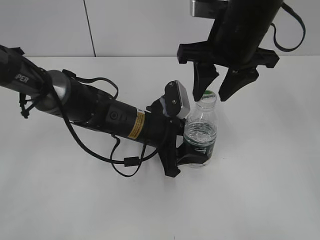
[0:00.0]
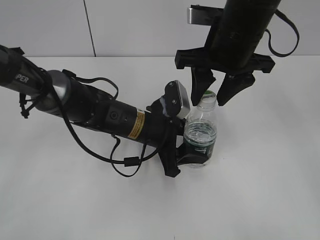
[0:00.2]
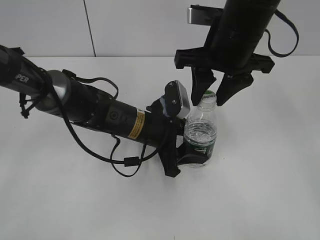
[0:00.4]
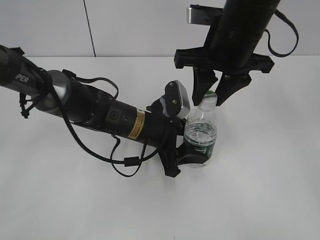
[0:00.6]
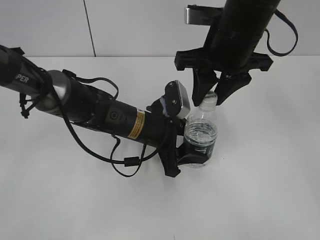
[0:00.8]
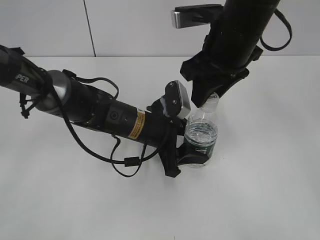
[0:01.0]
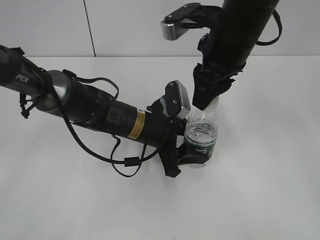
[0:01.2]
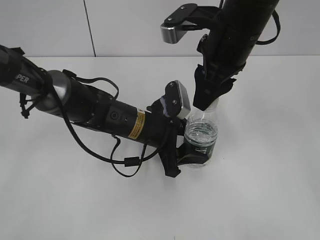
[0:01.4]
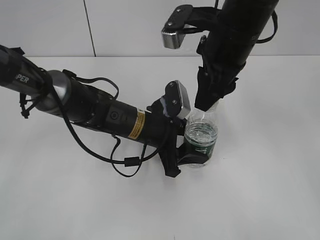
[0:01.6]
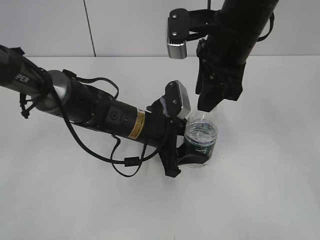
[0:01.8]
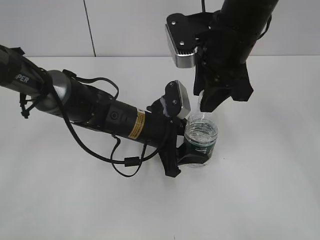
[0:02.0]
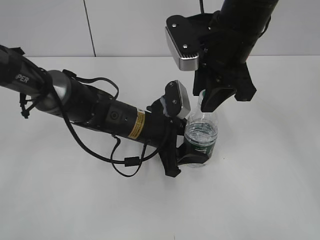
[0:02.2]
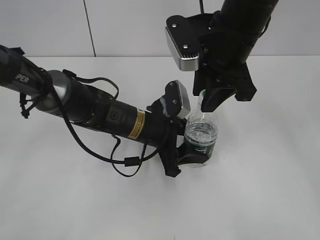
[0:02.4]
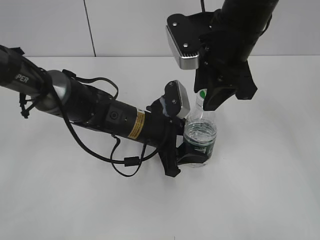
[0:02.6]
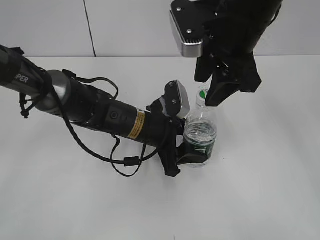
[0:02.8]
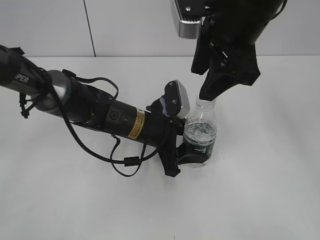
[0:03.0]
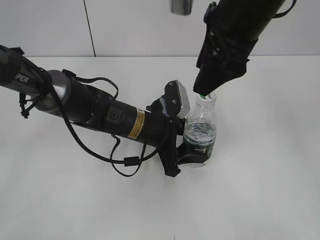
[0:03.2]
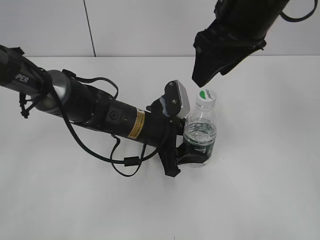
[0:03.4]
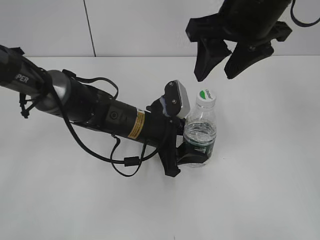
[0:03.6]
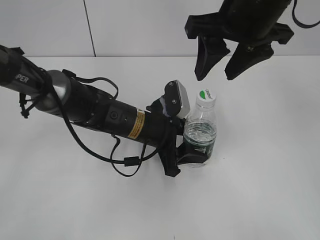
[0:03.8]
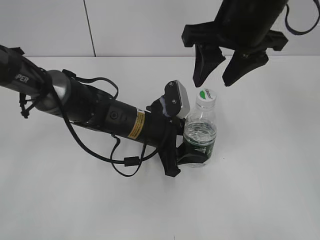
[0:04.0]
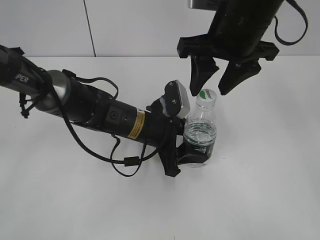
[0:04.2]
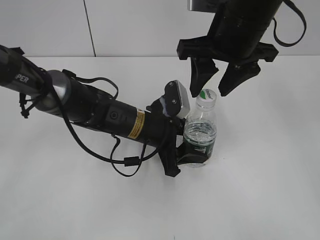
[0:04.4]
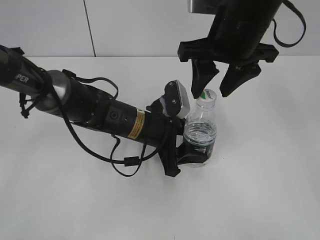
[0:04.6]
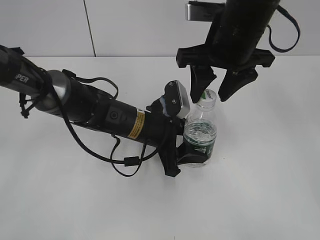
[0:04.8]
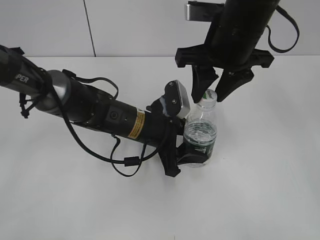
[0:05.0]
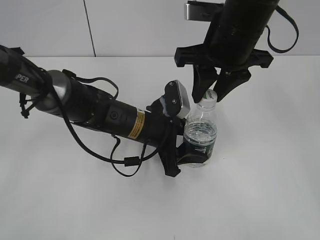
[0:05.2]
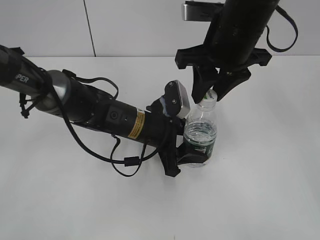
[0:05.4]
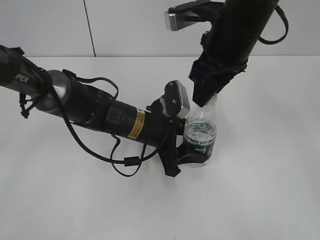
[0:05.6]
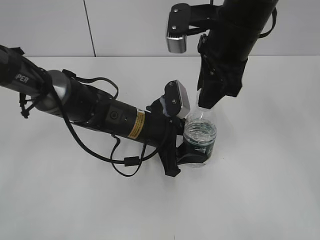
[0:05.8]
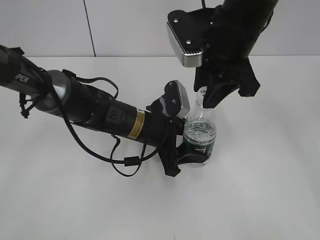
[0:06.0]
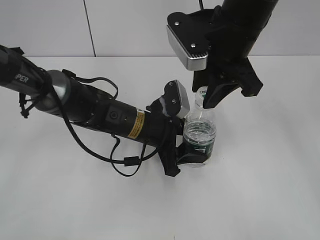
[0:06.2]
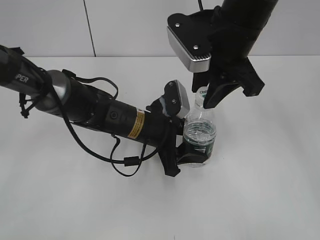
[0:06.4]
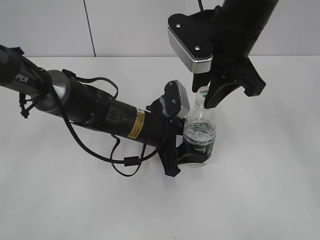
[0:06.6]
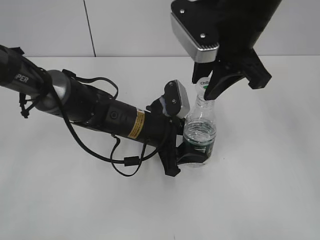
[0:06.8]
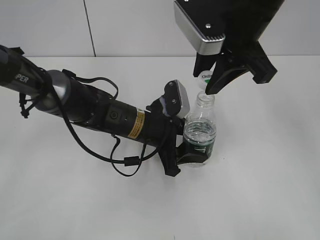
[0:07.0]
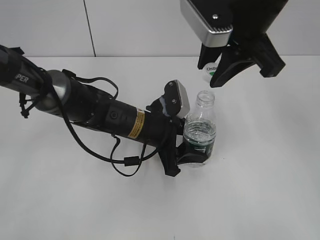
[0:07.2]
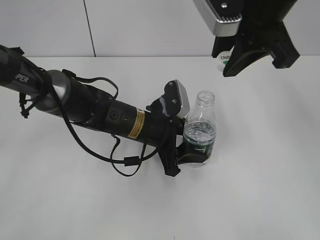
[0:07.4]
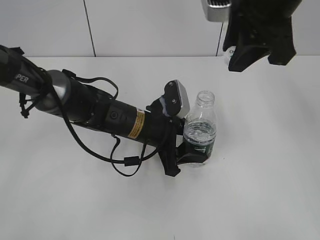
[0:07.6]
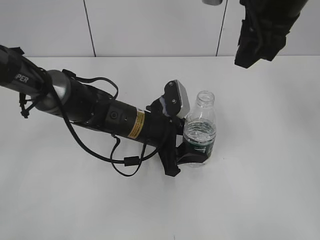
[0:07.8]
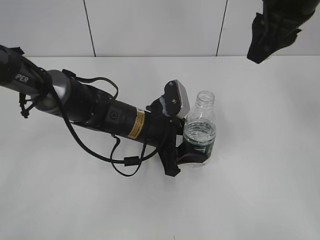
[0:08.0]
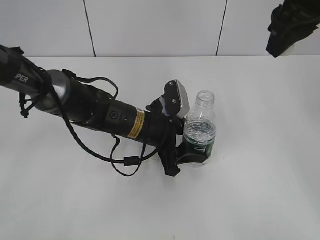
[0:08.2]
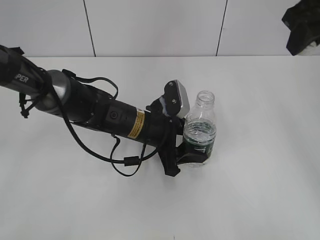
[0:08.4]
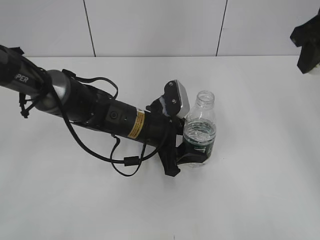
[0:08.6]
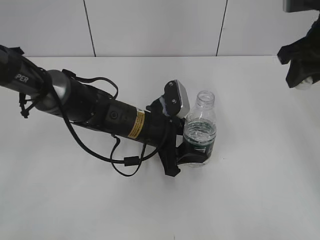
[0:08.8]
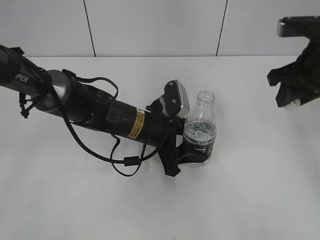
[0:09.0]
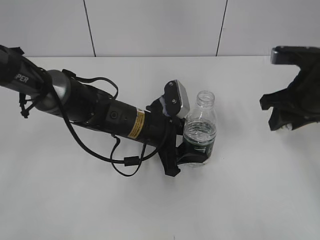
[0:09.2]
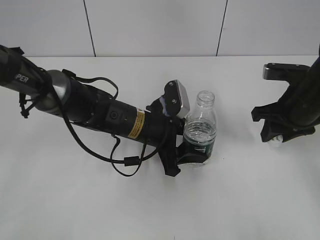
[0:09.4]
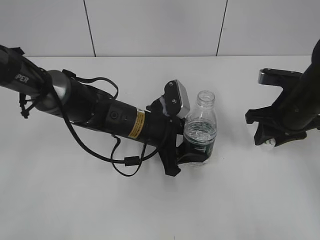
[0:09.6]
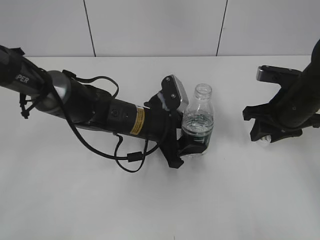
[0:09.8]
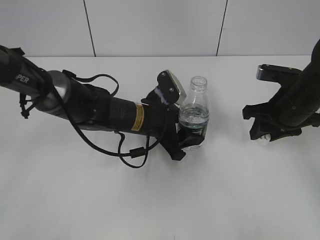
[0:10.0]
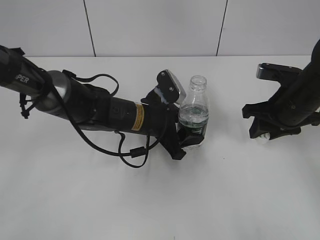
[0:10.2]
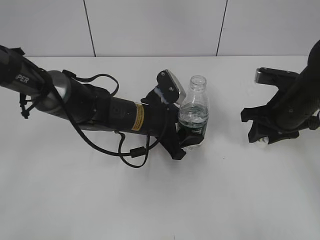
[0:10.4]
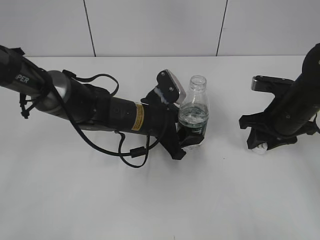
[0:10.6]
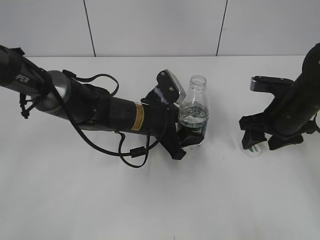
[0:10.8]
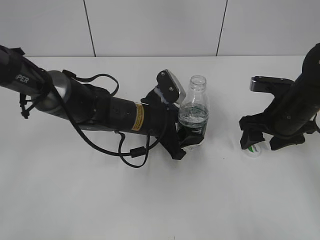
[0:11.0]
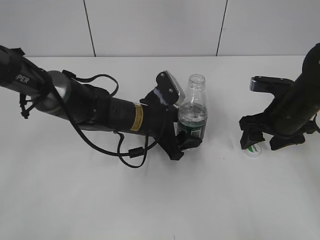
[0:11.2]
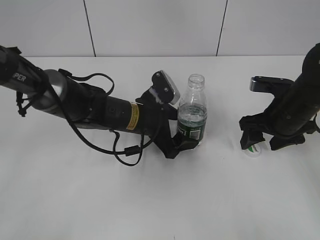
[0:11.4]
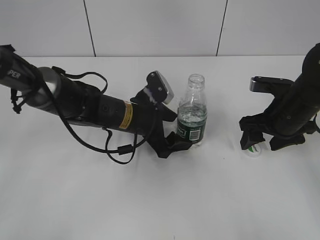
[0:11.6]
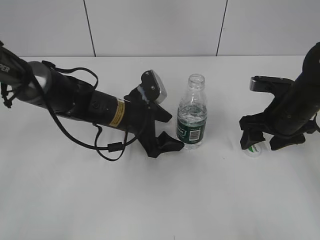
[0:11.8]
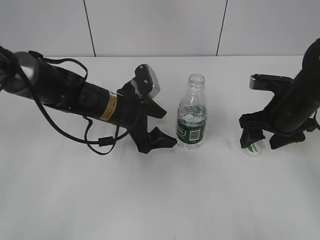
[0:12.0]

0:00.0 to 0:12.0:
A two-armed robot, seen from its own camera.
Step, 0:00.0 to 0:06.8: Unscrew the bottle cap with the right gripper while holding the bottle with the left gripper.
Step, 0:07.0 to 0:12.0: Place the bottle on the table with the left gripper.
0:01.6 to 0:03.0: The right gripper opens up.
0:04.4 to 0:06.0: The right gripper closes.
0:06.0 to 0:07.6: The right gripper shifts about 5 cm upward.
0:07.6 to 0:09.0: The right gripper moves to the right and downward, about 15 cm.
0:09.0 to 0:10.4: The right gripper goes some 10 cm downward.
0:10.4 to 0:12.0: The right gripper opens up. The left gripper changes place by about 5 cm, and opens.

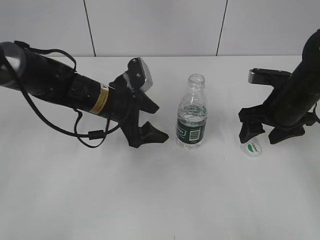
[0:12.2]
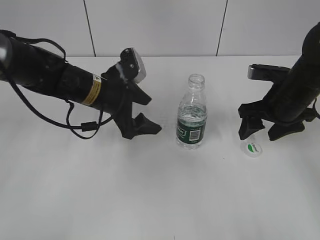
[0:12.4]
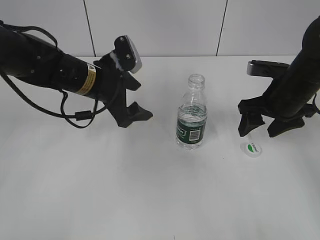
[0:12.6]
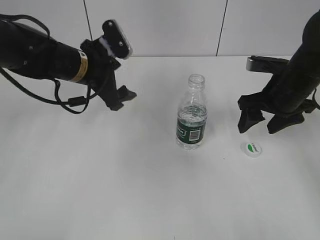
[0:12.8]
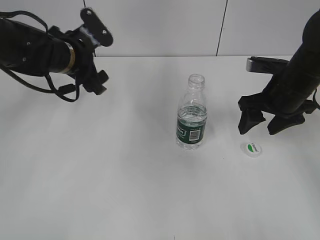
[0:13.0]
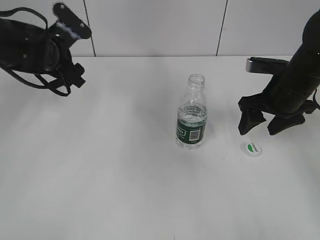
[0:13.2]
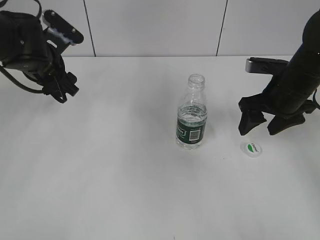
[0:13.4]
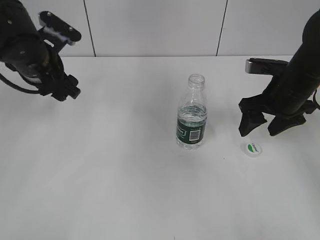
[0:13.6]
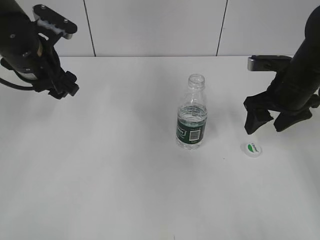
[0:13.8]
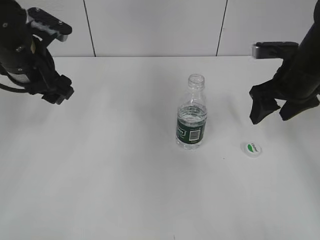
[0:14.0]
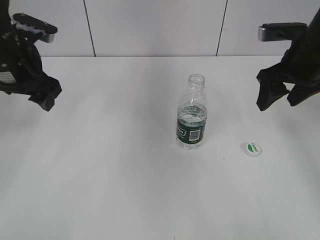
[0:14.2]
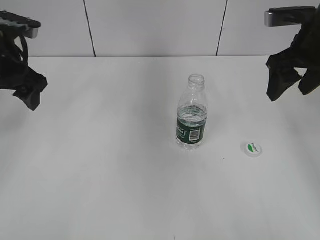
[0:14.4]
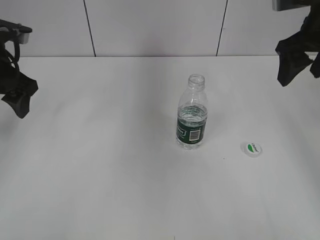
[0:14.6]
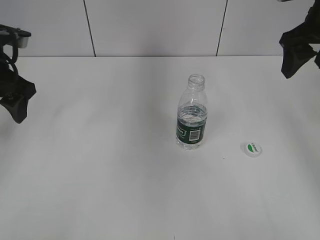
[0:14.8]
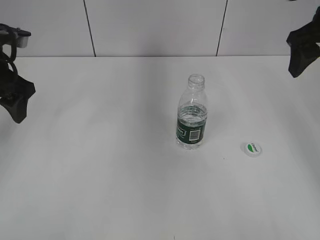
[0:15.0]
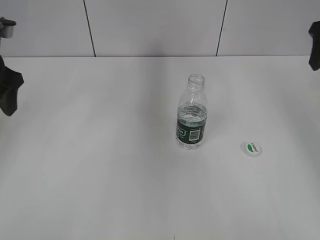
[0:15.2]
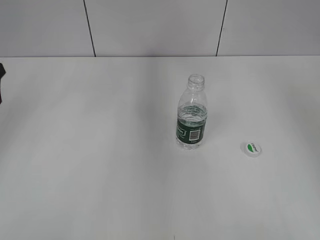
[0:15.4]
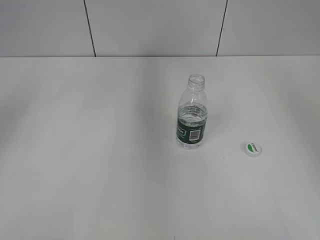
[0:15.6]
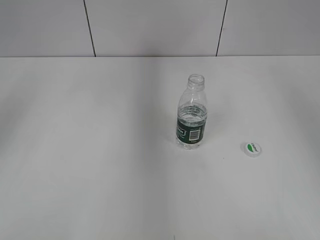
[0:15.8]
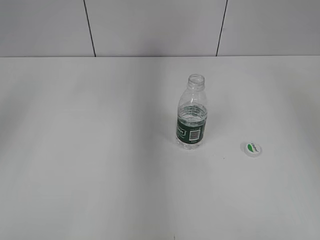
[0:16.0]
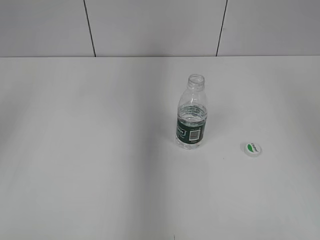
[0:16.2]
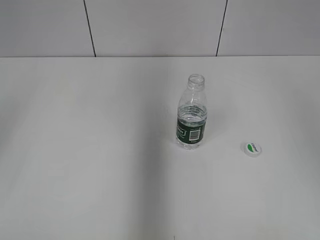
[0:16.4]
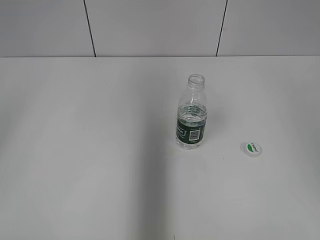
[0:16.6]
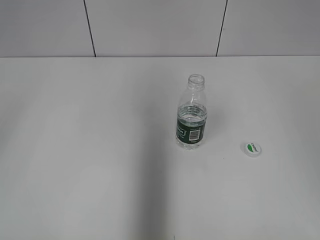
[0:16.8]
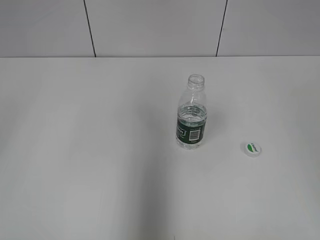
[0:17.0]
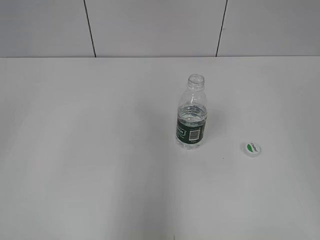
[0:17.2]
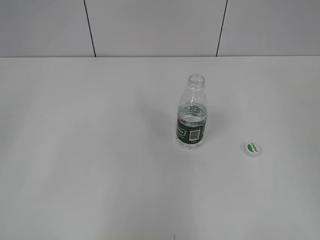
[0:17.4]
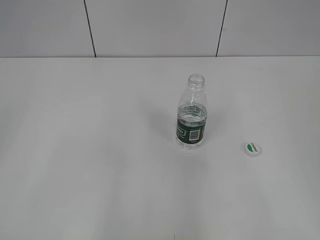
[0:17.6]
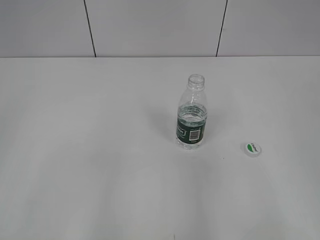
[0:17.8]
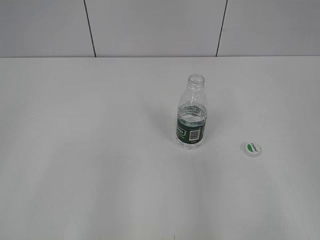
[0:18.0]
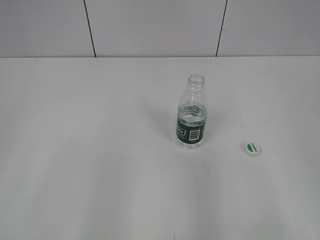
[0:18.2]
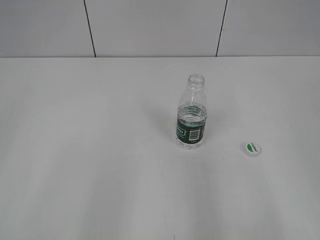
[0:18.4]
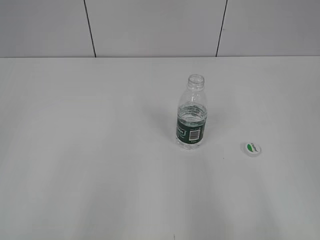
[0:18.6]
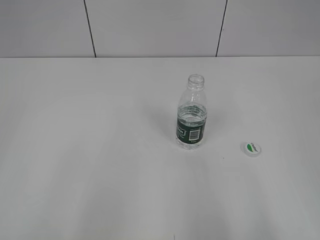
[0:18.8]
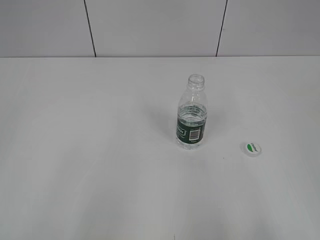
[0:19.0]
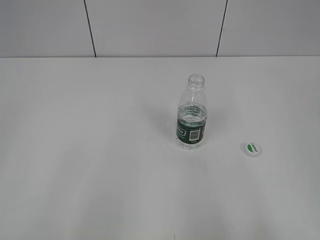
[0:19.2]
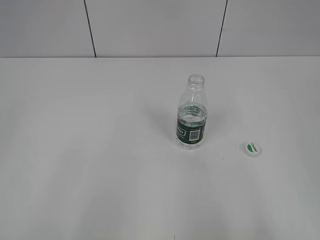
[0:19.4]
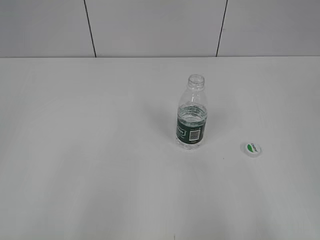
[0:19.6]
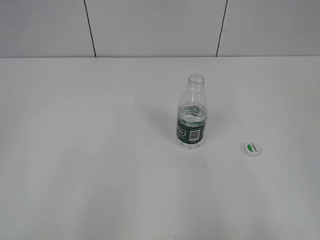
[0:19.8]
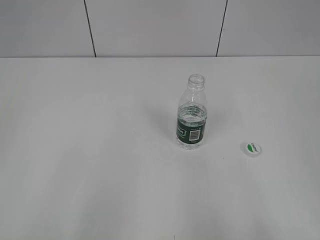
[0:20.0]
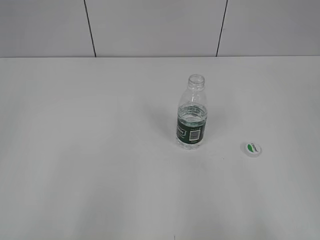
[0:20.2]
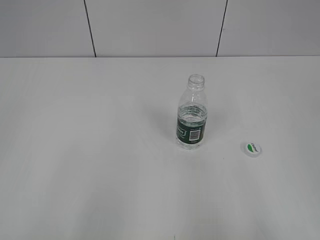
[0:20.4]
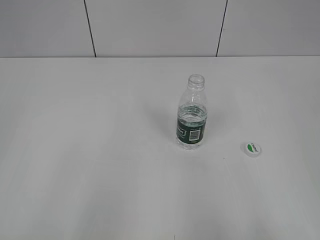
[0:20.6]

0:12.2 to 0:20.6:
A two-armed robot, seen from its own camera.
0:12.2 to 0:13.6: The left gripper is displaced to the left and upward by some 15 cm.
0:13.6 to 0:15.0: The left gripper shifts about 5 cm to the left. Meanwhile the right gripper is displaced upward by about 15 cm.
0:15.0 to 0:16.4: Both grippers move backward and upward, roughly 15 cm.
0:16.4 to 0:17.8: The right gripper heads backward and downward, covering about 20 cm. The left gripper travels backward by some 15 cm.
0:19.2 to 0:20.6: The two grippers keep their place.

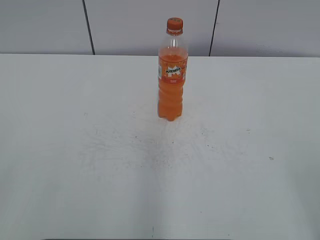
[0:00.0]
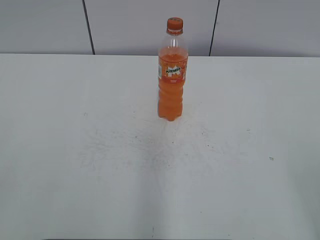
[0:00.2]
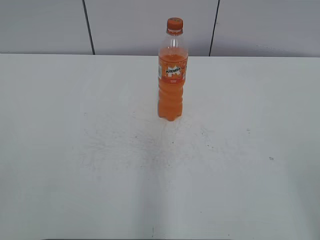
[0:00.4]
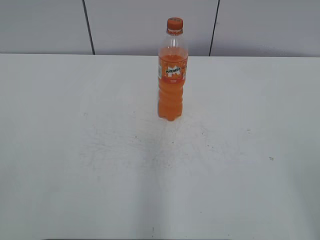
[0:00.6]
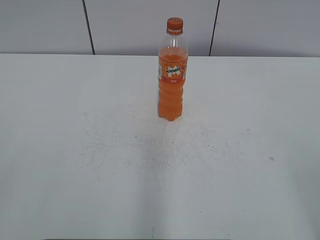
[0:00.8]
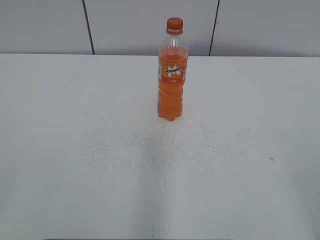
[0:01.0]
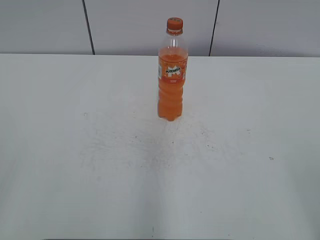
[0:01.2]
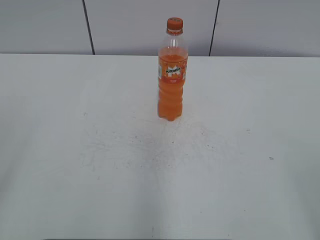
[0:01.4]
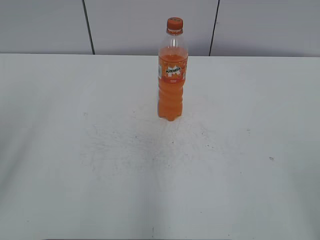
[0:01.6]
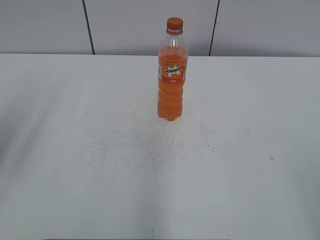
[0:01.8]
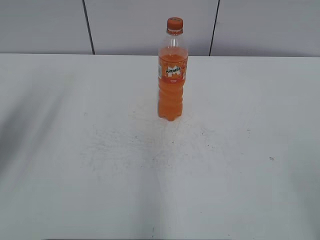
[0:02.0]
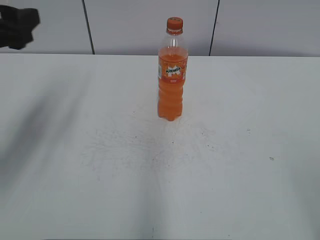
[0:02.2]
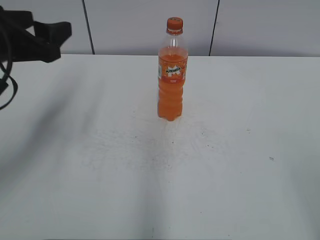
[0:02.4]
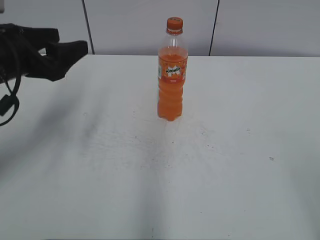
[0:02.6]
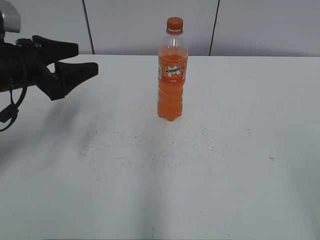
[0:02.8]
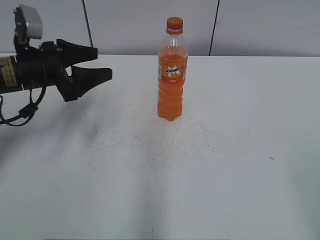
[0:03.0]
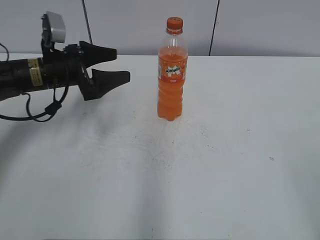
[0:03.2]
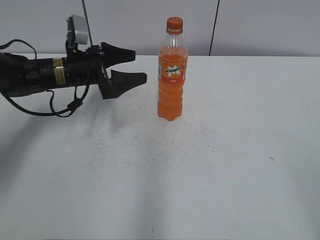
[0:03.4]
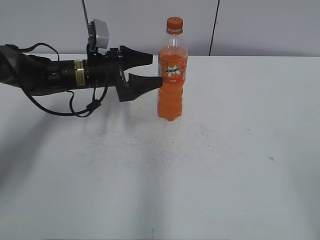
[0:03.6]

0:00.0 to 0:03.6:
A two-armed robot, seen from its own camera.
0:01.8 to 0:03.6: The left gripper shifts approximately 40 cm forward, downward and to the right, and opens its fingers.
